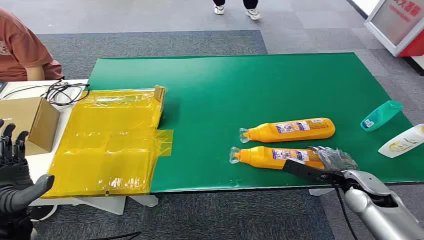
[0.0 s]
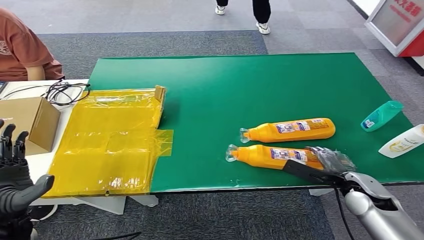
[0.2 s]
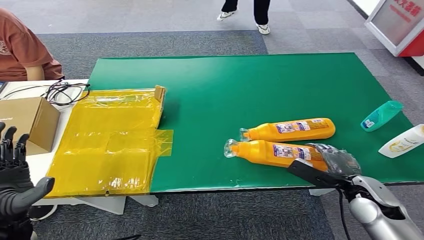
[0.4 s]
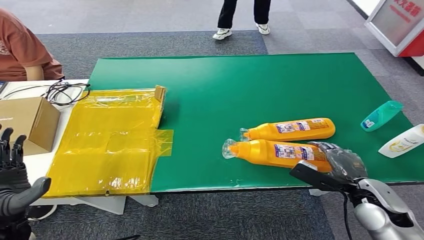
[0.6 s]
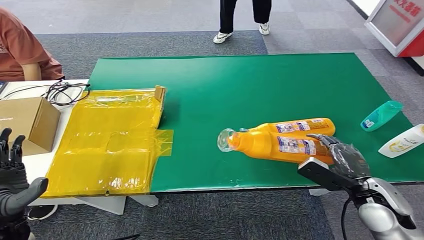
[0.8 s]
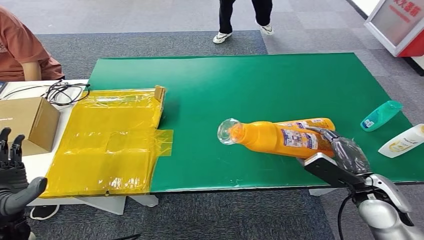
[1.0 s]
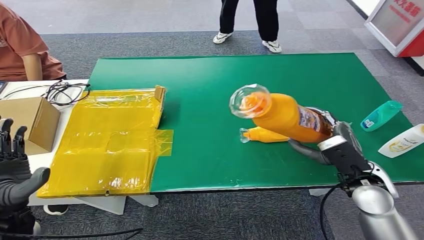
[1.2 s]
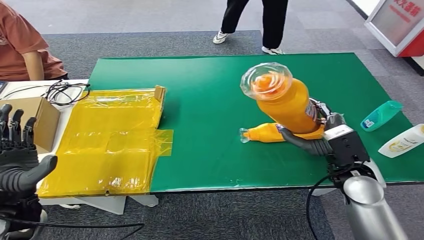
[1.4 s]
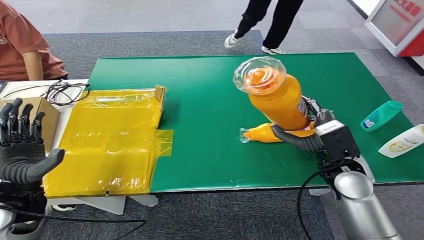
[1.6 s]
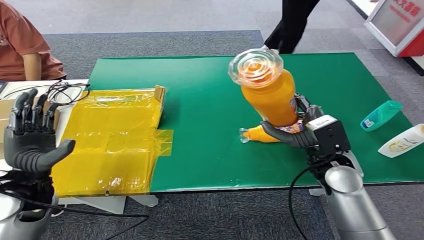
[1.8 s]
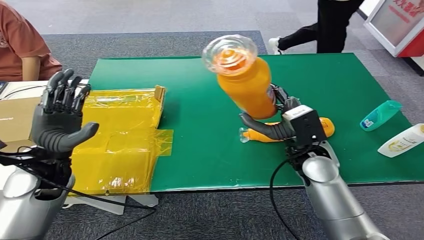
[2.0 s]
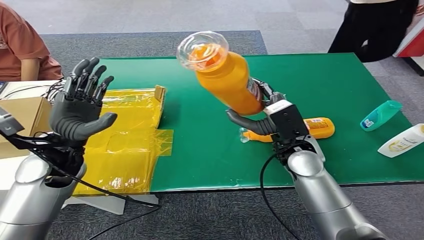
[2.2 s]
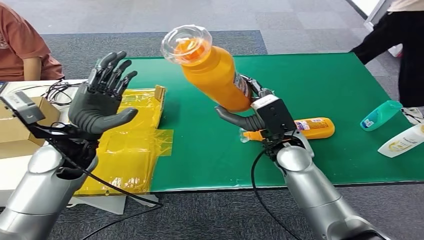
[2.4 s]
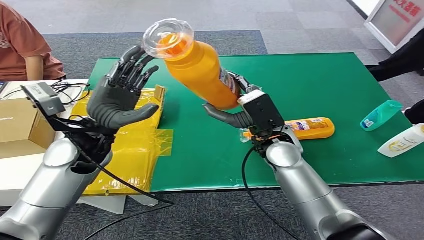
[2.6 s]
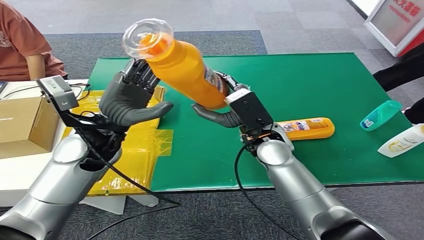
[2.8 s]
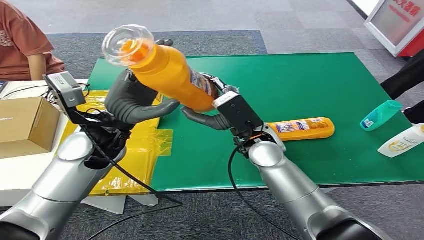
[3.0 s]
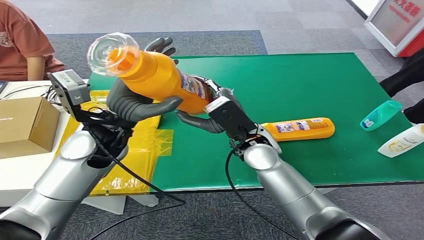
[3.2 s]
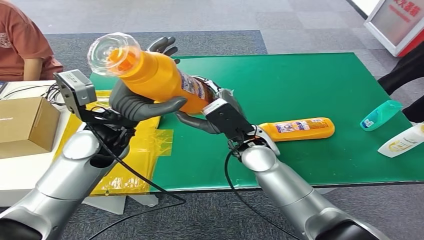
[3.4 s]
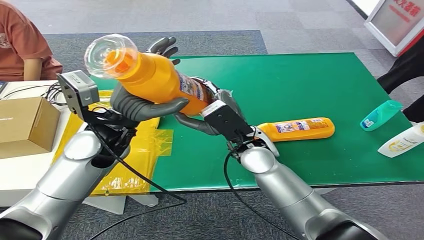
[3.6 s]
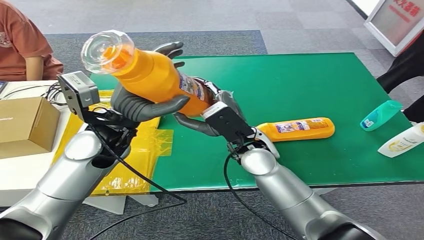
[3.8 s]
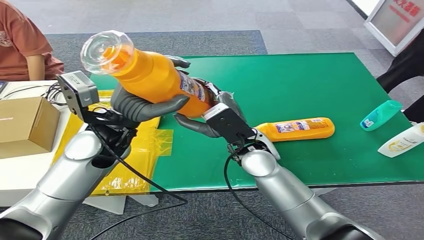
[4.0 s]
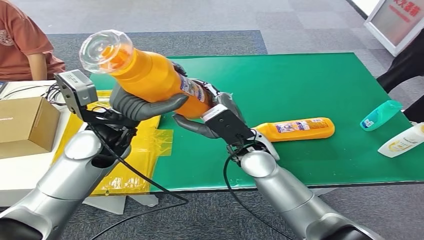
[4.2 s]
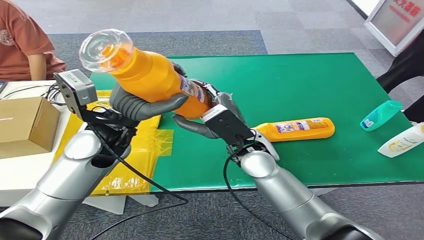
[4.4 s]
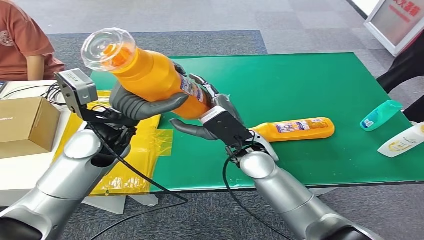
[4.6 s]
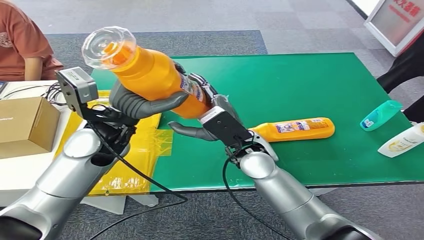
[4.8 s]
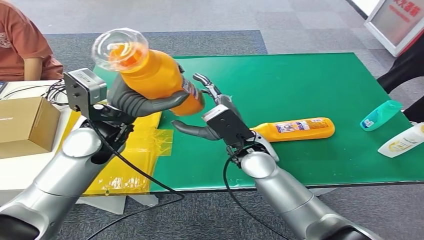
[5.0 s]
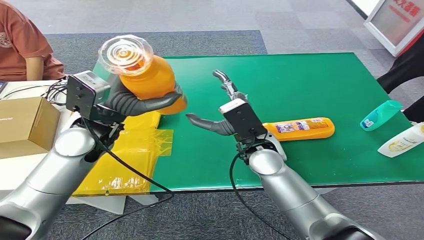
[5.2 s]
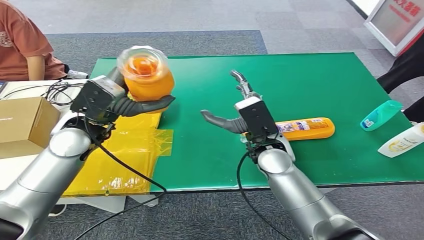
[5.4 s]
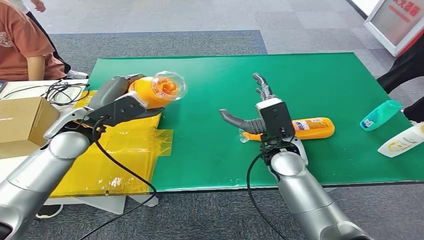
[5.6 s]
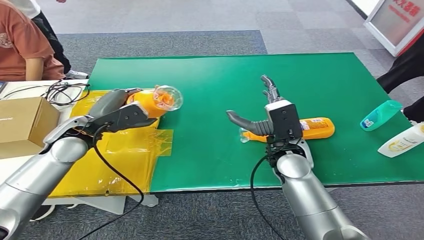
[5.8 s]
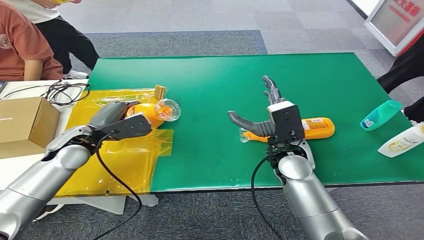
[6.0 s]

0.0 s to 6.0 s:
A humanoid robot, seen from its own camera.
Step, 0.0 to 1.8 s: Pick up the bottle from the table.
Step, 2.4 to 6.0 s: Turn the bottle to the front side.

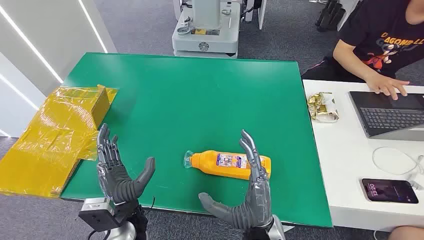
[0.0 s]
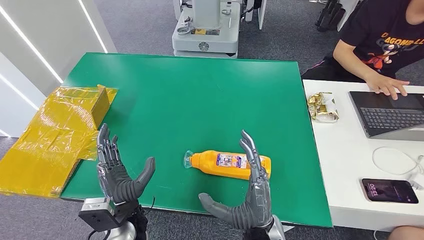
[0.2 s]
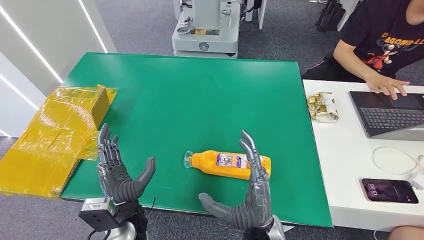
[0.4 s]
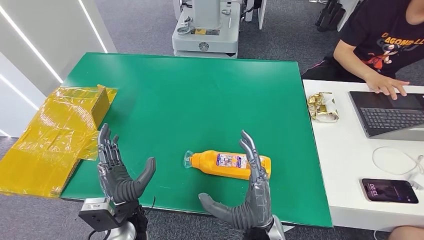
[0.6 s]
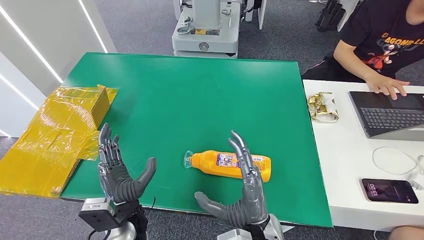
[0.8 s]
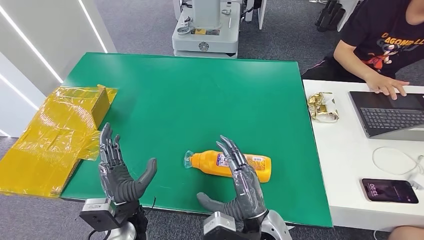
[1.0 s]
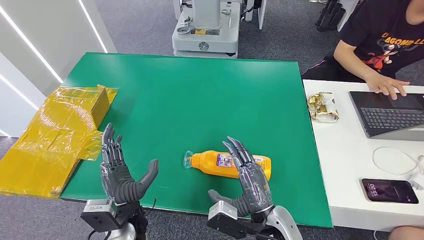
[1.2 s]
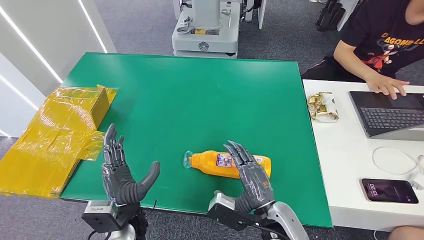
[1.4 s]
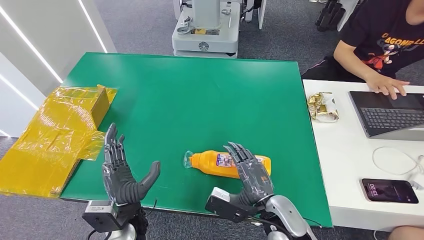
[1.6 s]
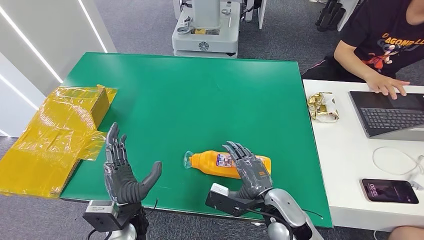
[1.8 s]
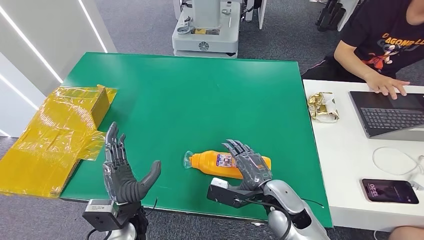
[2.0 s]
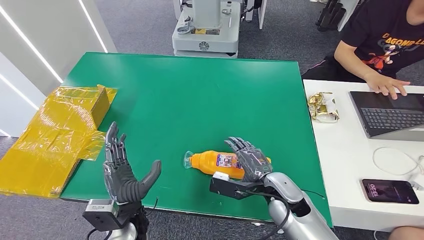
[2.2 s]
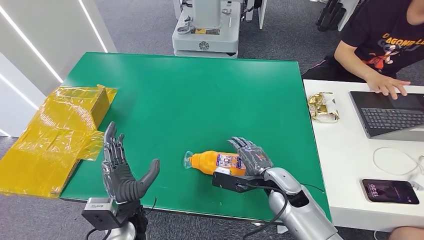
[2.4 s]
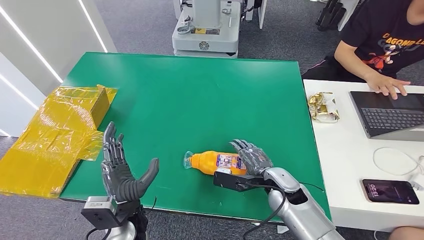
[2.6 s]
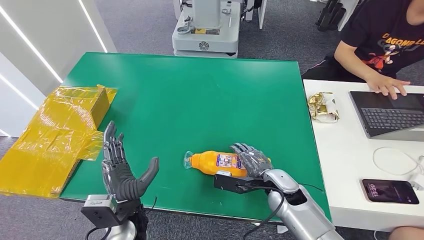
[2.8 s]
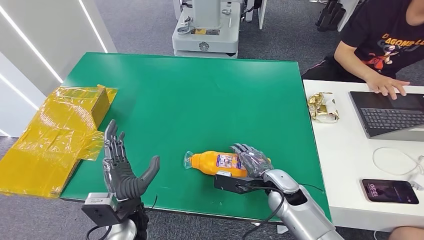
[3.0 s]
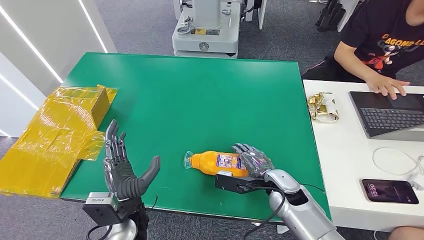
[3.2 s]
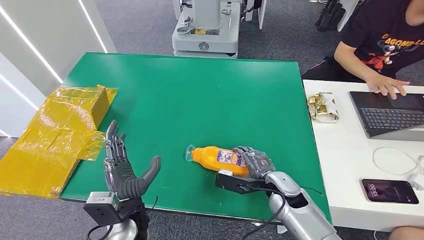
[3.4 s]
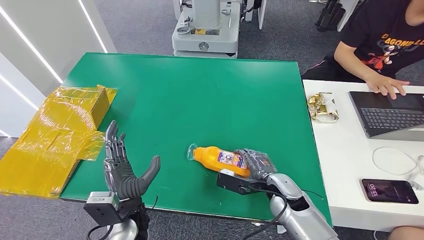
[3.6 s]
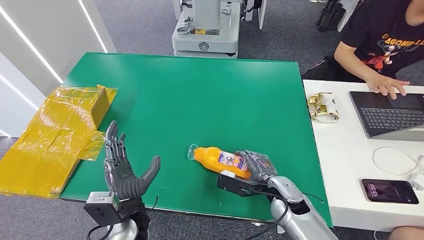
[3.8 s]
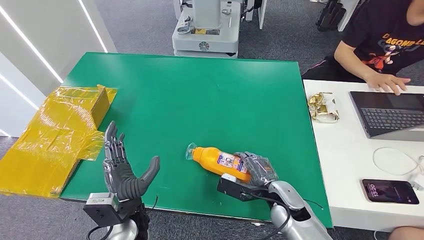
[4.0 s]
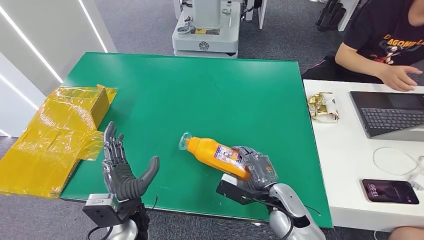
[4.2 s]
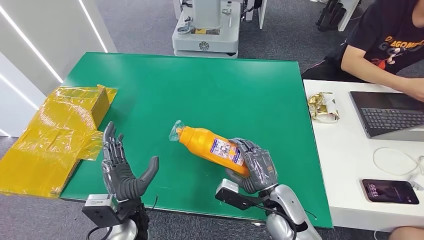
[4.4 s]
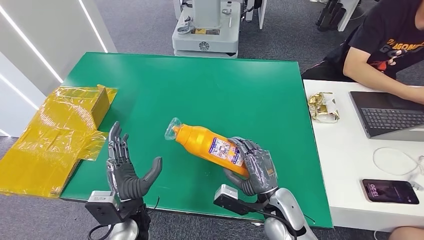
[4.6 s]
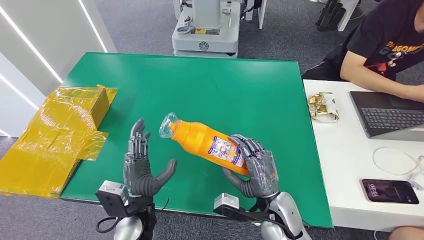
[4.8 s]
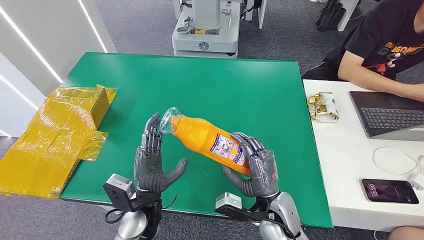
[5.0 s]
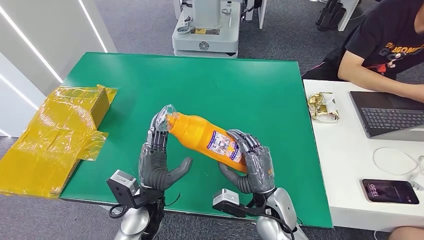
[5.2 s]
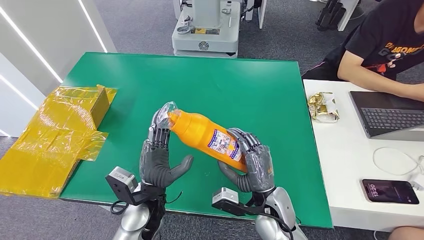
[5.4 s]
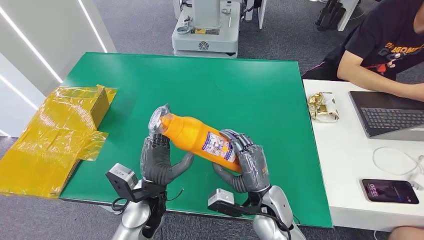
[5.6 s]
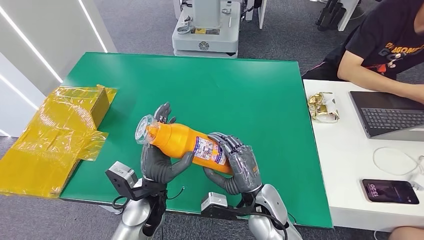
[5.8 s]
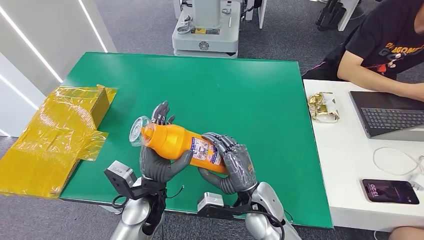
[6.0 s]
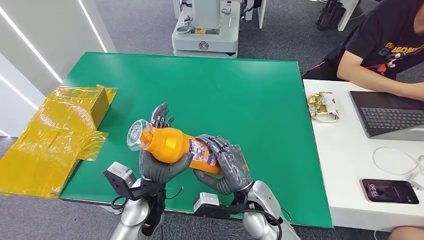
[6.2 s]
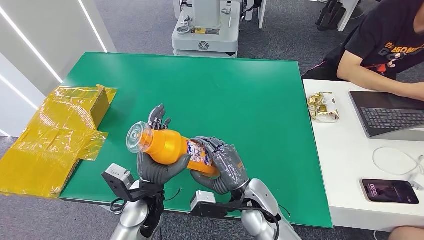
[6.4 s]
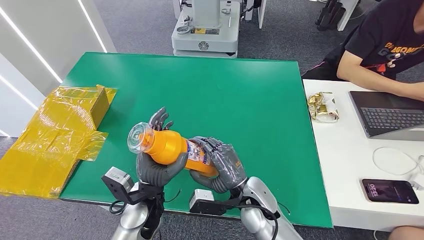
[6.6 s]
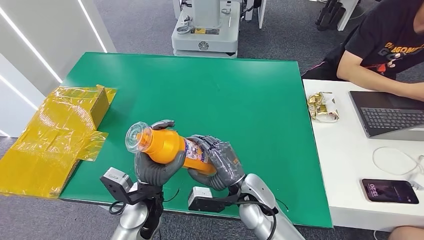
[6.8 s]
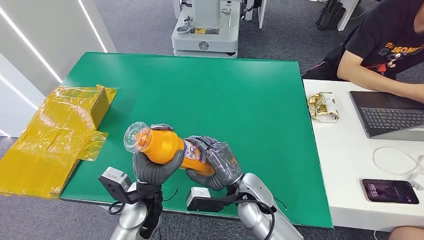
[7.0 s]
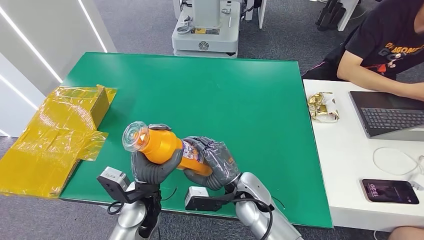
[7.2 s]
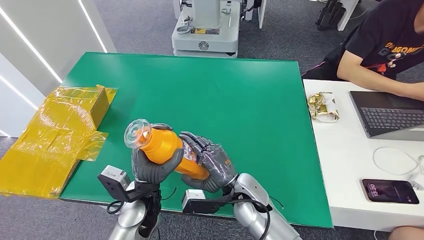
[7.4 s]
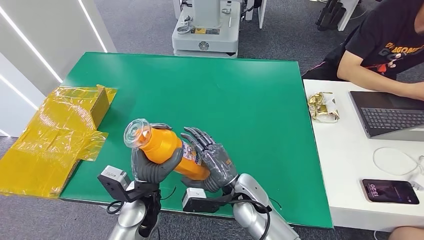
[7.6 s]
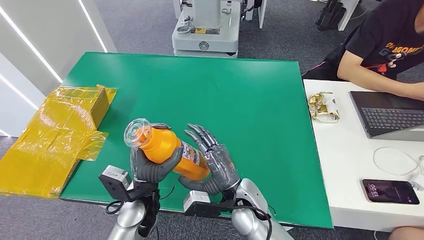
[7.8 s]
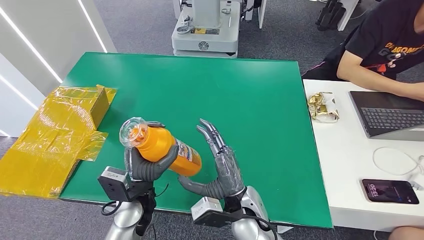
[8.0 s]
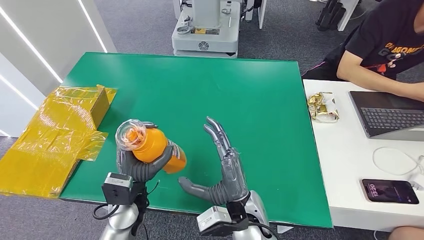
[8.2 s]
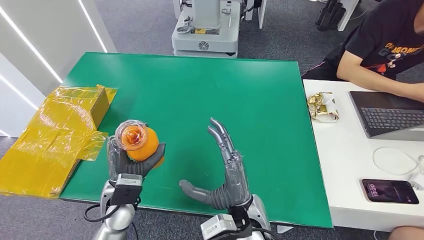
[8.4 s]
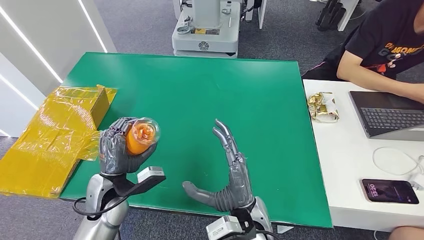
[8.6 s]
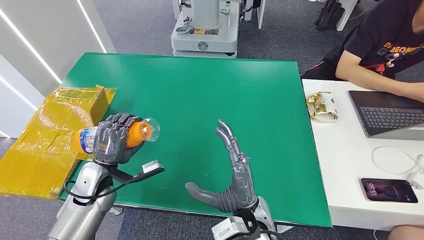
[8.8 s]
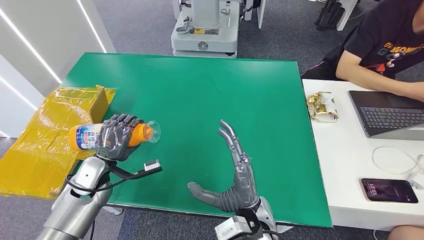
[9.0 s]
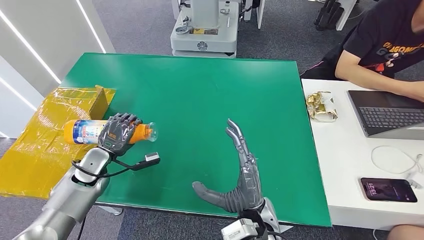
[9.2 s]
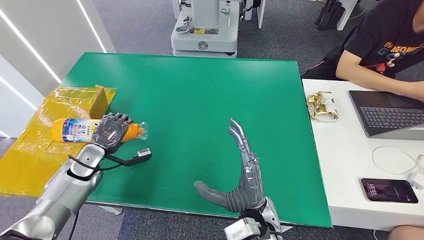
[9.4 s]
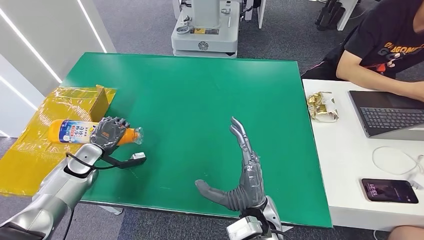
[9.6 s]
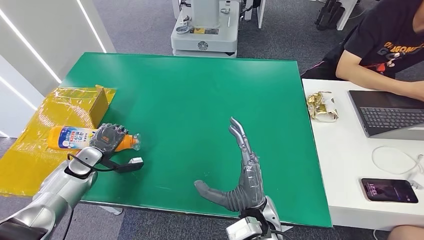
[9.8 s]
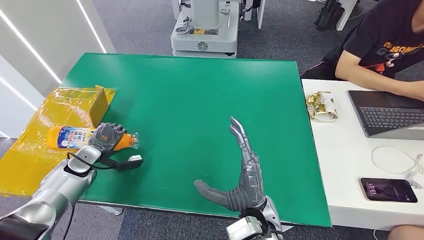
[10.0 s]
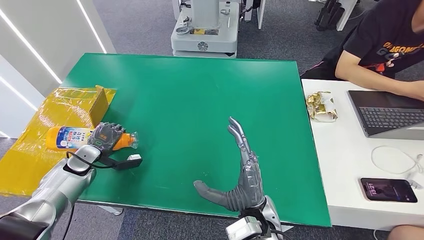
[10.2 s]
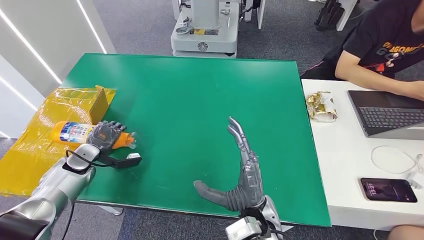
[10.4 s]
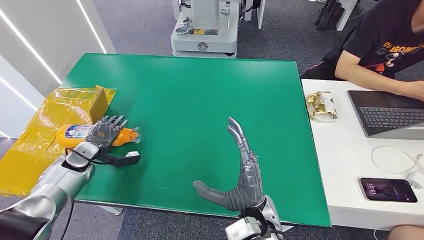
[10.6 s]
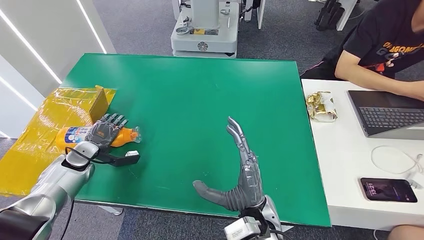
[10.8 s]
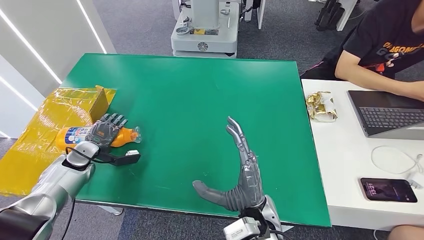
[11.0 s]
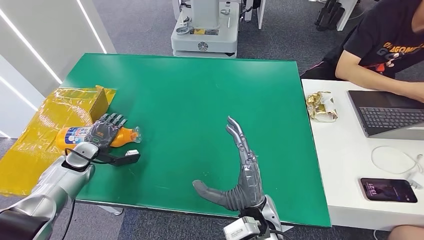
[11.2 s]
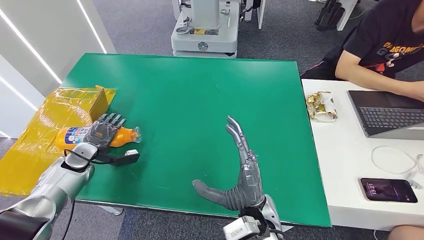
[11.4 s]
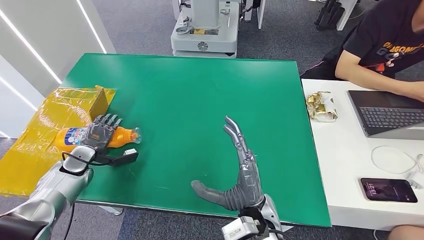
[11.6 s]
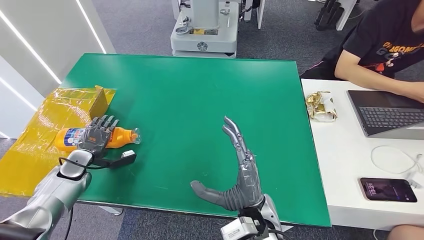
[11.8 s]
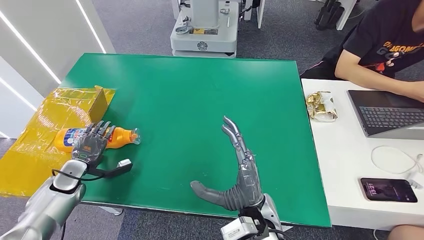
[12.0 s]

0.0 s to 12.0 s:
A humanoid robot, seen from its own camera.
Step, 0.0 to 4.8 s: Pick up the bottle from the table.
1.6 to 3.0 s: The right hand moves forward, approximately 10 cm.
3.0 to 4.4 s: The right hand goes about 5 cm backward.
4.4 to 6.0 s: The left hand moves approximately 5 cm; the right hand goes roughly 5 cm to the left.
6.0 to 7.6 s: The hands stay close to where they were, moving slightly.
7.6 to 9.0 s: The left hand heads to the left, covering some 15 cm. Meanwhile the right hand goes some 5 cm backward.
9.0 to 10.4 s: The left hand heads to the left and forward, covering about 15 cm.
10.4 to 12.0 s: The left hand heads backward, covering about 5 cm.
